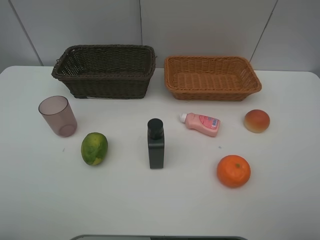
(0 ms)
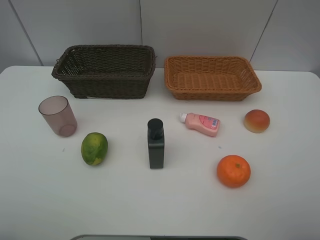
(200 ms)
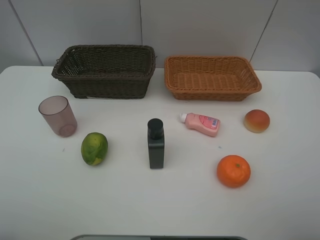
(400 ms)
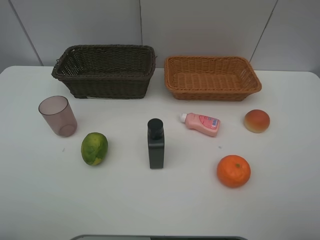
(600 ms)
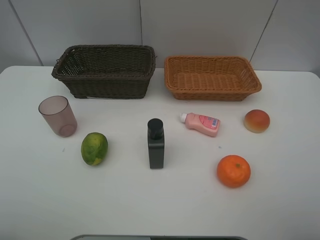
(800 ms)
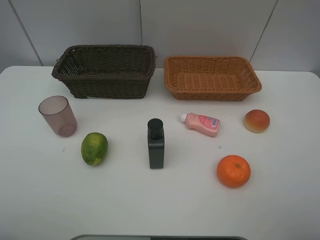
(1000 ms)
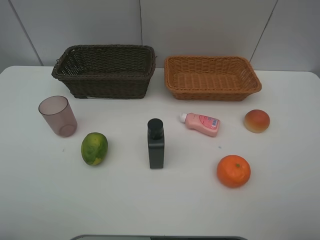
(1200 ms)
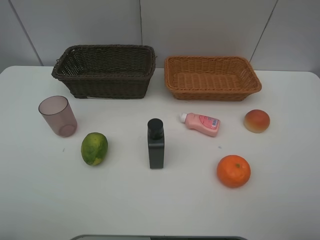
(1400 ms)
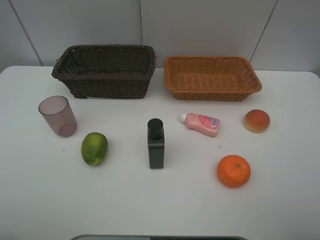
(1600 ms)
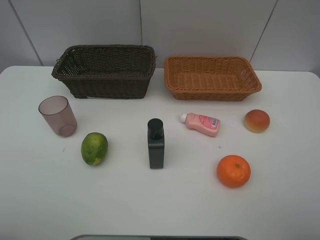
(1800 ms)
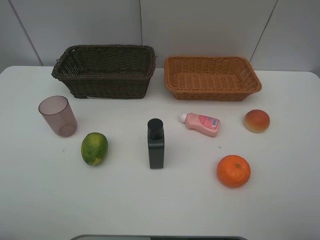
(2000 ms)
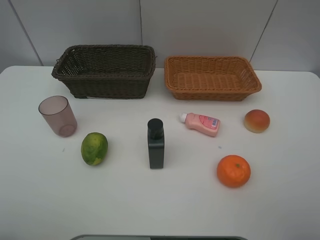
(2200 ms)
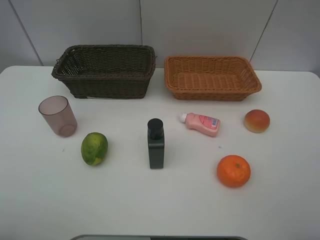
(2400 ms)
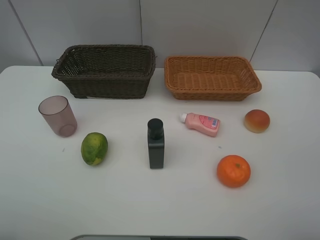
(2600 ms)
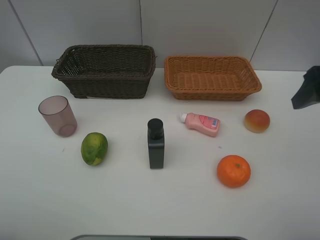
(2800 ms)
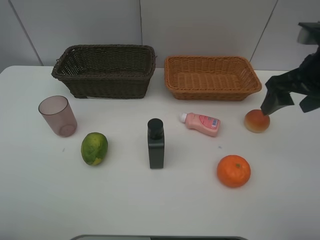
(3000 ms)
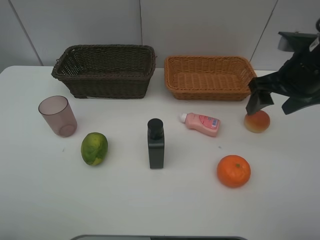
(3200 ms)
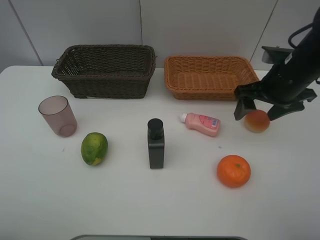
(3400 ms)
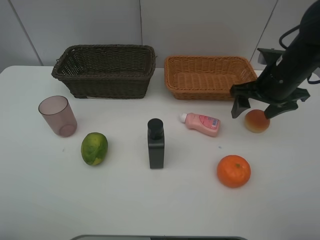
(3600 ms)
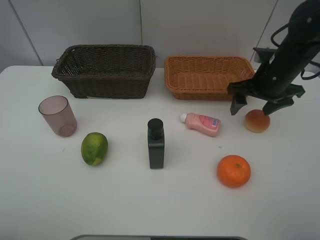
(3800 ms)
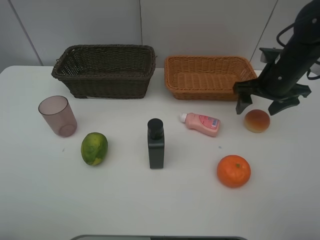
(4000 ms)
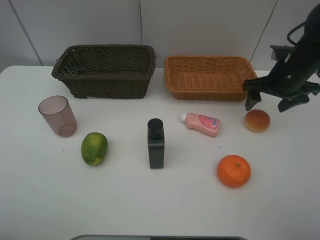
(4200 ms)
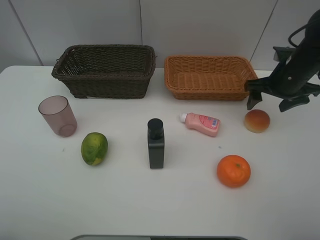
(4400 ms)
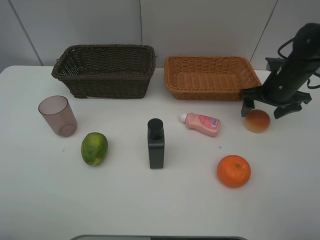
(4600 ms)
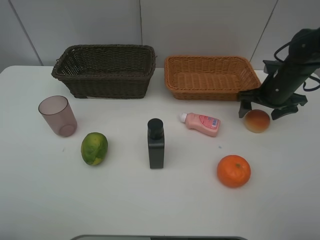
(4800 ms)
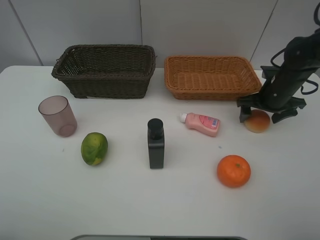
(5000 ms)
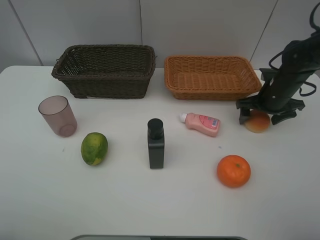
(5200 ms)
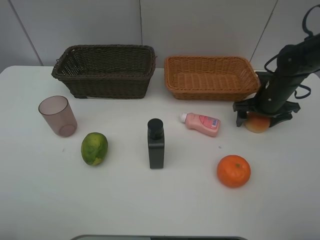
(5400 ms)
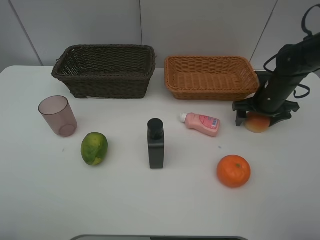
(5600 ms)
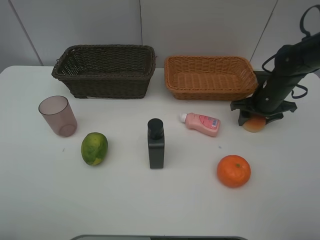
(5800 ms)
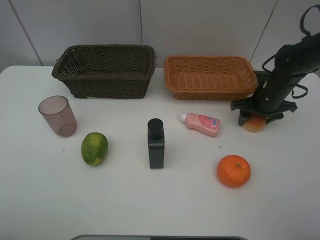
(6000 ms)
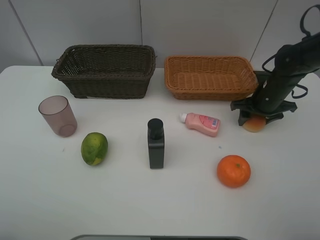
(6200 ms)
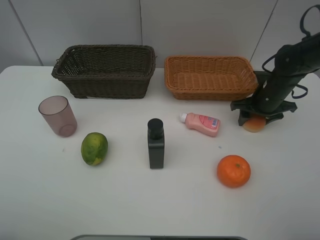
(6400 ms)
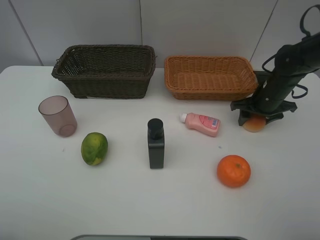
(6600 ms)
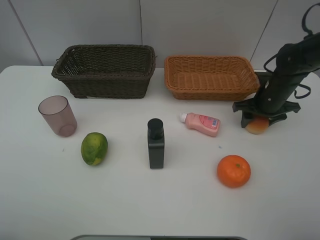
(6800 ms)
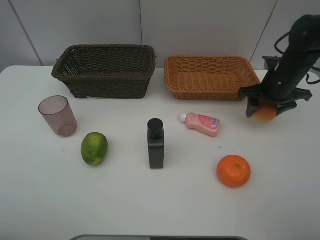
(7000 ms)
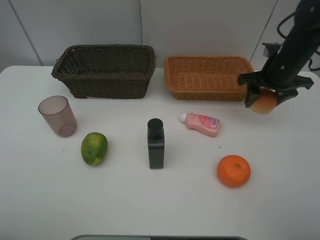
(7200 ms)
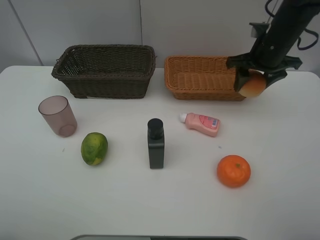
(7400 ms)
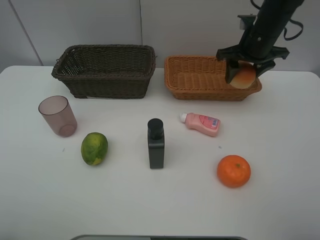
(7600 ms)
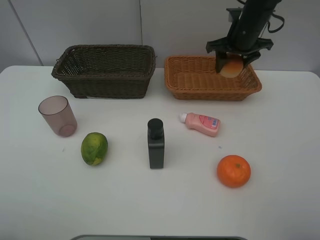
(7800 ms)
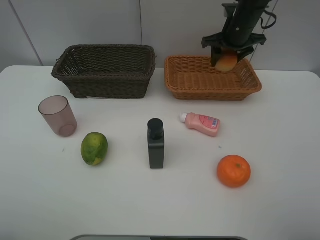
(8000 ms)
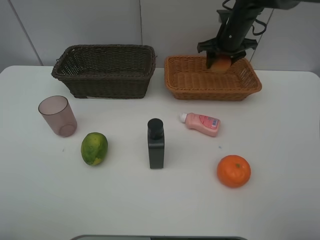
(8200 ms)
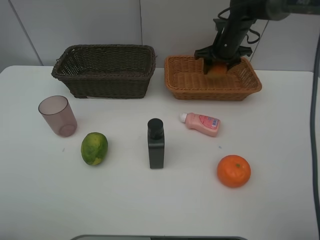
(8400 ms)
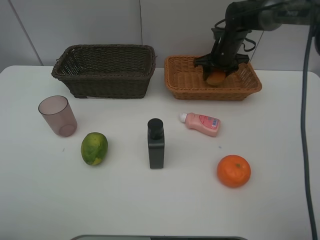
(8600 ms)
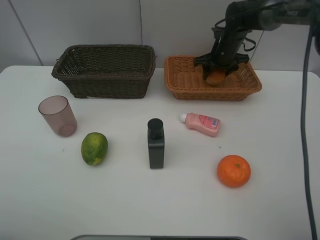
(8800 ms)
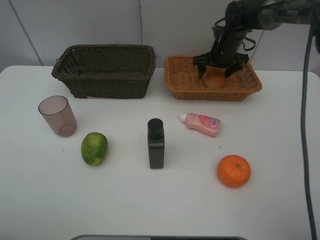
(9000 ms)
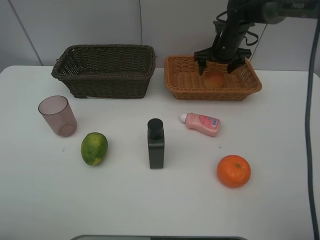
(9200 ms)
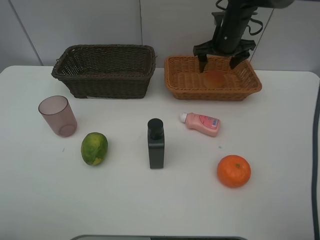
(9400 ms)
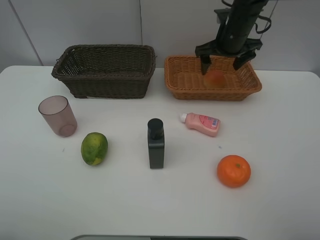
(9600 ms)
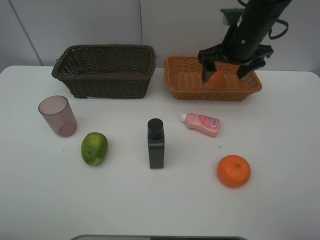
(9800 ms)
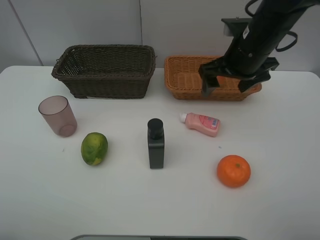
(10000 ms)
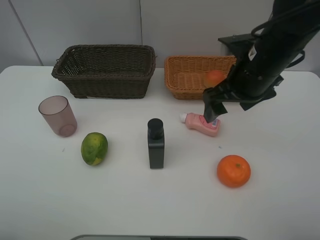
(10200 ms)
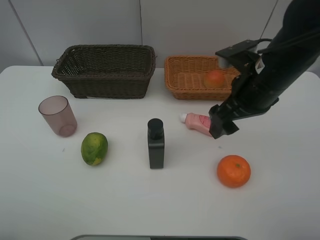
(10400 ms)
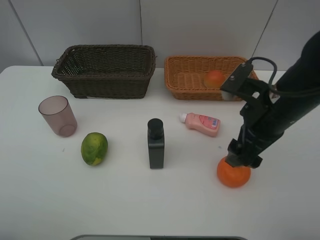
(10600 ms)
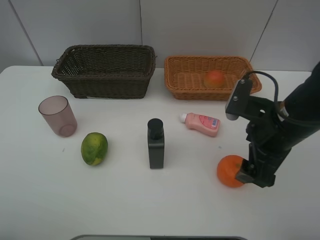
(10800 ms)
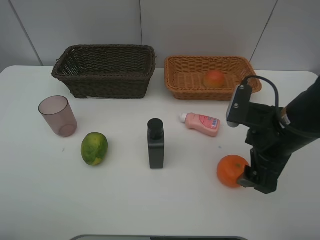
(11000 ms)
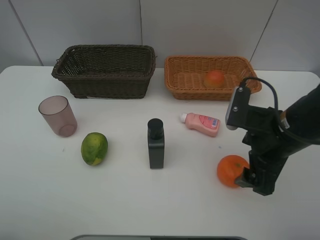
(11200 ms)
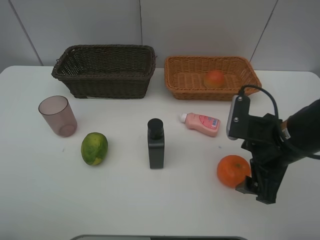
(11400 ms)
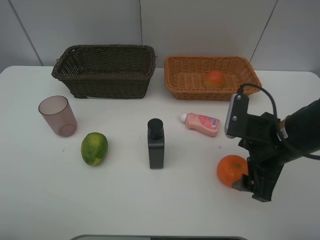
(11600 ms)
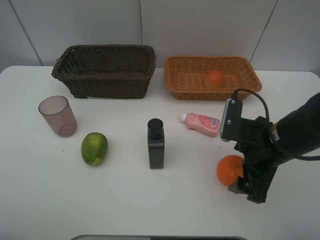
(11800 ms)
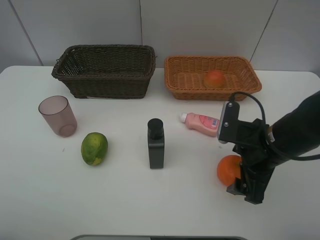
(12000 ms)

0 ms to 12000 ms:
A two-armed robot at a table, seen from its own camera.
Task of the whole recording: place multiple objects separately in different baskets.
0 ms to 1600 ms: Neither gripper changes place.
1600 ms to 3000 ms: The right gripper shifts roughly 25 cm forward.
3000 ms to 4400 ms: The right gripper is displaced forward and downward by some 15 cm.
4400 ms to 6000 ms: The right gripper heads downward, covering some 5 cm, and closes.
6000 ms to 7600 ms: The right gripper travels upward and to the left by some 15 cm.
7600 ms to 9000 ms: The right gripper shifts roughly 10 cm forward and downward, and opens up.
9000 ms to 10400 ms: The right gripper heads backward, covering some 25 cm.
10400 ms to 12000 ms: The right gripper heads downward and backward, covering roughly 10 cm.

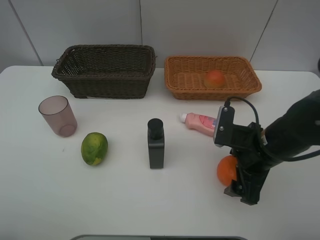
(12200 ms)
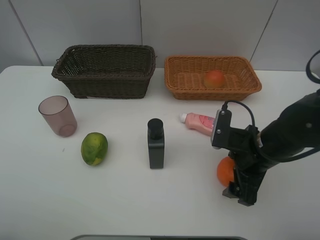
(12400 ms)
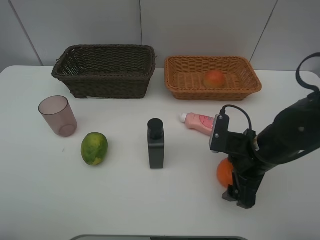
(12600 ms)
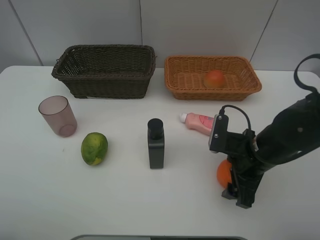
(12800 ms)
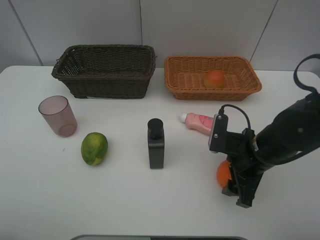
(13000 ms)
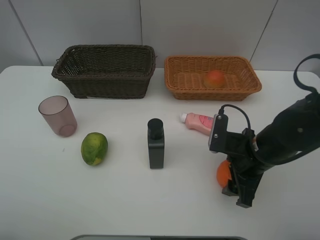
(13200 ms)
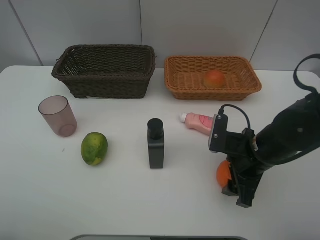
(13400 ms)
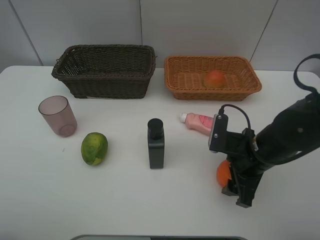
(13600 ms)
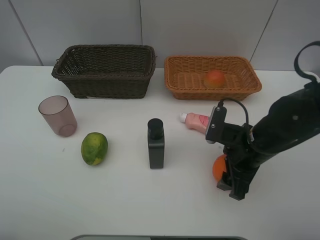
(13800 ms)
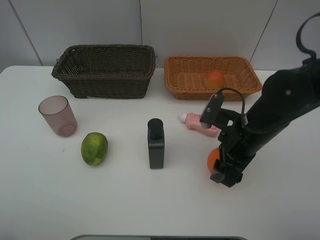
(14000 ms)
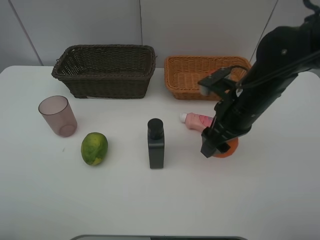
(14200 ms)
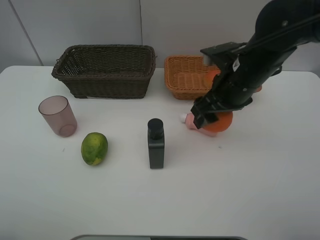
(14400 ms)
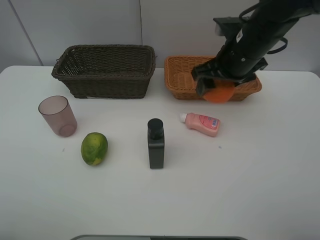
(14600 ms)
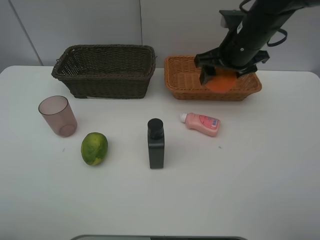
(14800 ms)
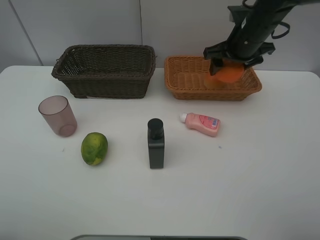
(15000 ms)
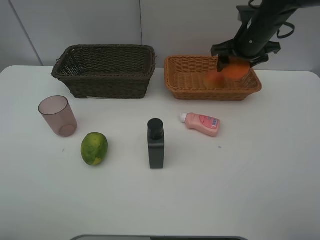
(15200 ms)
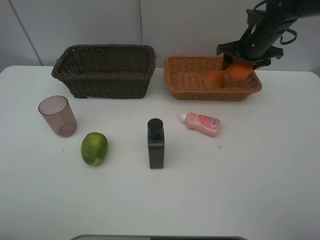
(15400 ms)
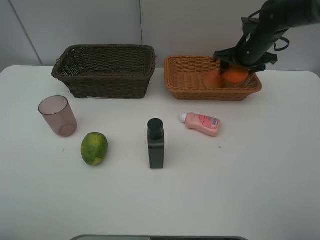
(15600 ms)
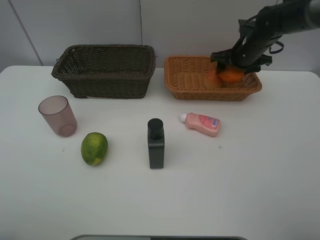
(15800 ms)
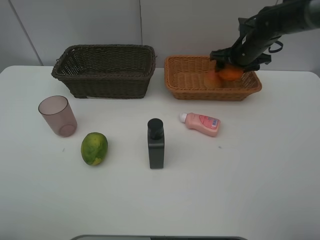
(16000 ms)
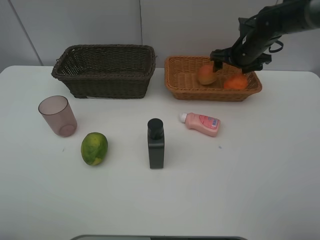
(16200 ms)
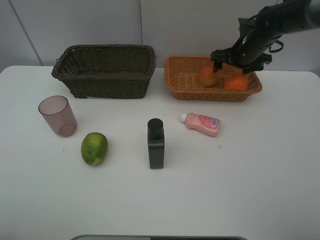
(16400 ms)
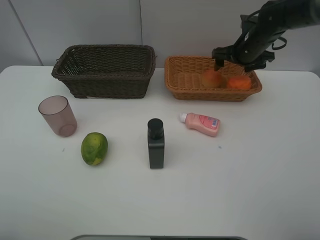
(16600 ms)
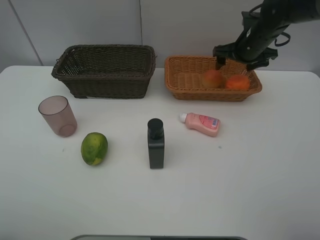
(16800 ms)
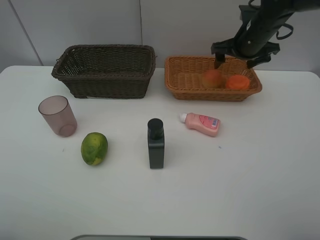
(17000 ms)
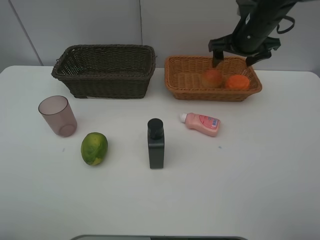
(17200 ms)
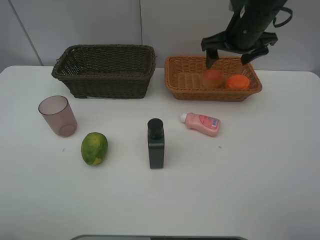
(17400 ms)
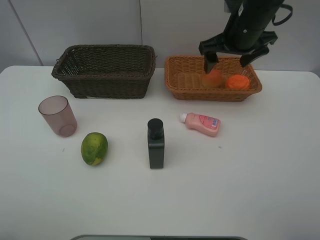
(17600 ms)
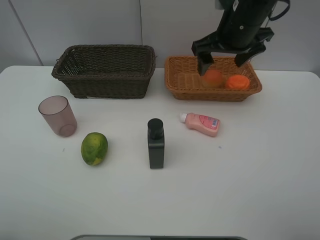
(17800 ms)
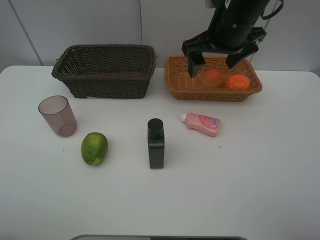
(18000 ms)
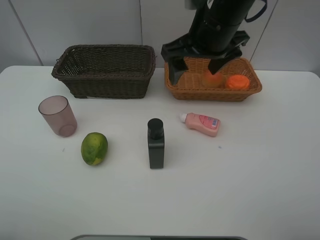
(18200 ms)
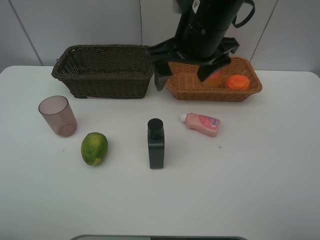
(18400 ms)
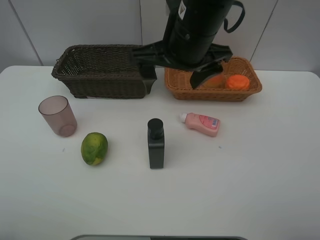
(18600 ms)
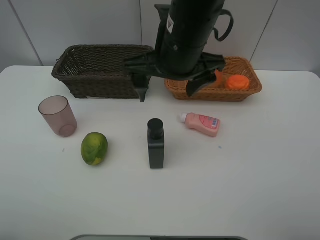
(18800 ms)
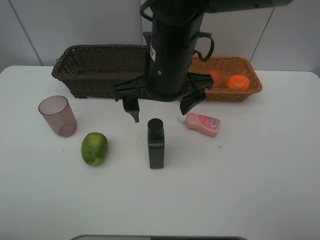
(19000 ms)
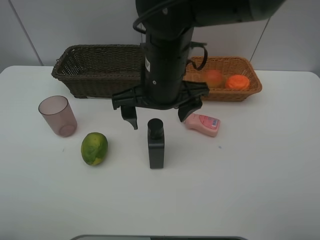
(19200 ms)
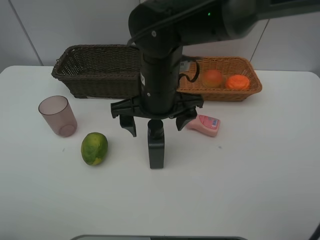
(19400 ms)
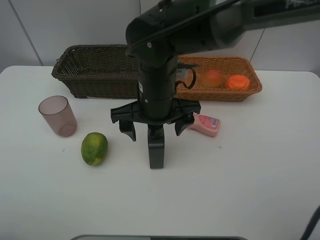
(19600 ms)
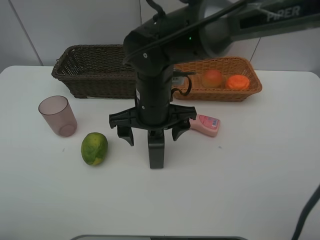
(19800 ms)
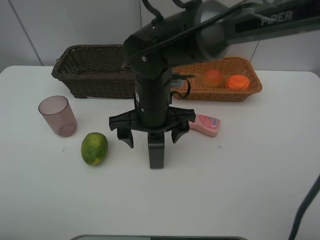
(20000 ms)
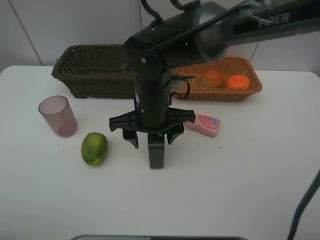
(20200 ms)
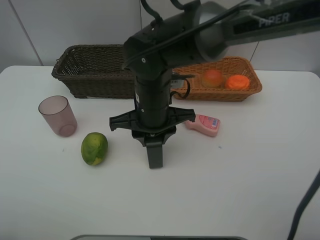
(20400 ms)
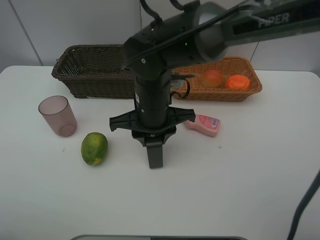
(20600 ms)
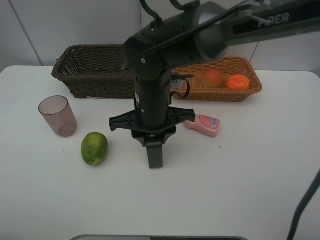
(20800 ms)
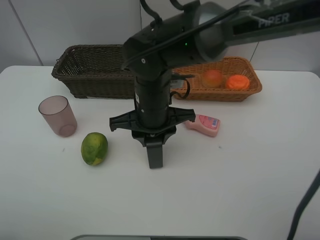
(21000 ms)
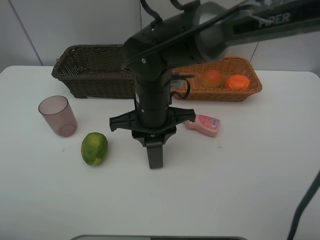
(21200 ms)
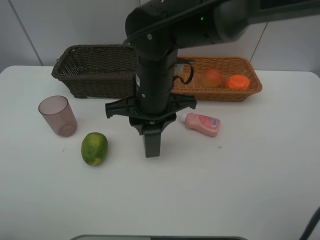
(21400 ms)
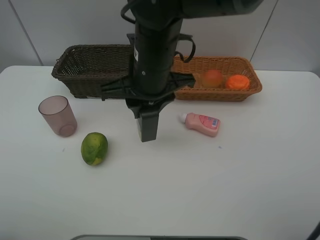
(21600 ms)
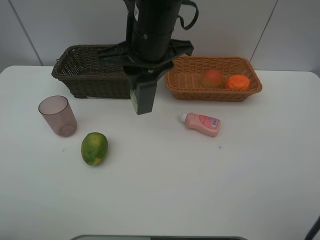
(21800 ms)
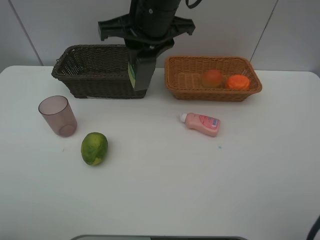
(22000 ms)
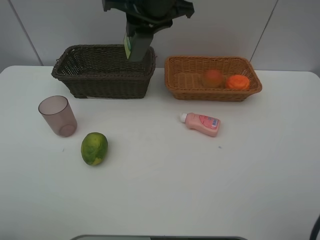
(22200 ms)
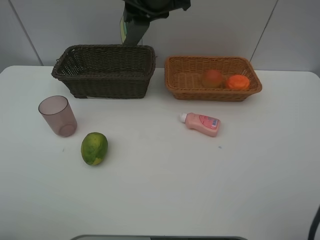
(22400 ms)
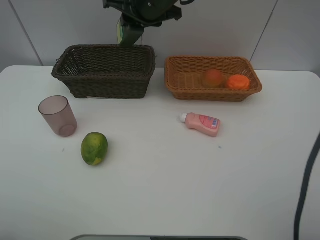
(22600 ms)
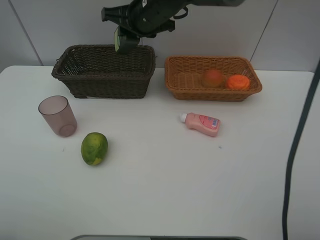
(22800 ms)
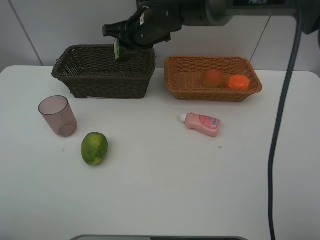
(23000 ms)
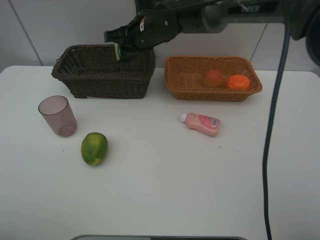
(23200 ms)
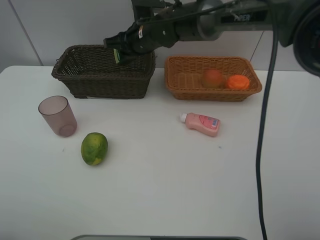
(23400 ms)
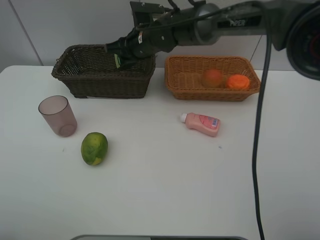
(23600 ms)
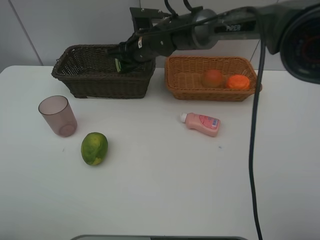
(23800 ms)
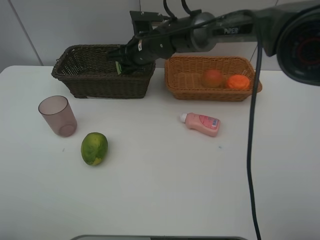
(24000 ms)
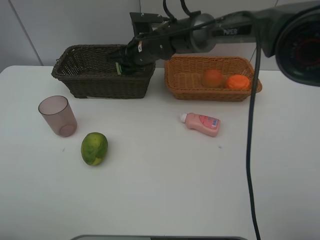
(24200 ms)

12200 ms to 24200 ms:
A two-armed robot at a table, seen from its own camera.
Task of the whole recording: place multiple objects separately in different baskets.
12200 ms to 13800 ms: The right gripper closes up.
13800 ms to 15200 ms: The right gripper goes about 25 cm forward and upward.
15200 ms to 16600 ms: The grippers stay close to where they were, moving slightly.
16600 ms to 18200 ms: The right gripper moves backward, to the left and upward, approximately 25 cm.
18200 ms to 19800 ms: The right gripper moves downward and to the left, approximately 15 cm.
19800 ms to 21200 ms: The right gripper closes up.
21200 ms to 22600 ms: The right gripper is displaced forward and upward by approximately 20 cm.
22600 ms to 24200 ms: The right gripper travels downward by roughly 10 cm.
